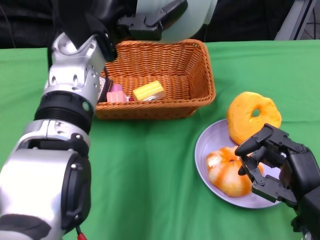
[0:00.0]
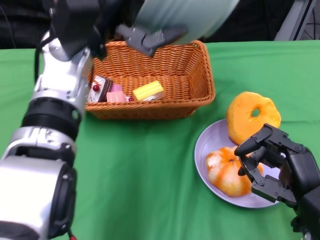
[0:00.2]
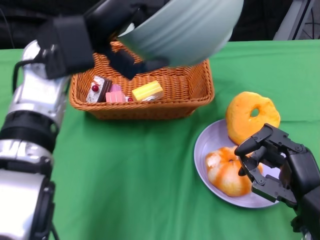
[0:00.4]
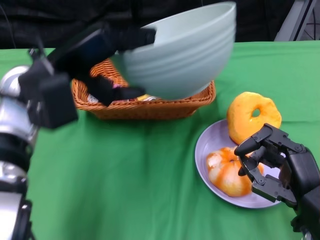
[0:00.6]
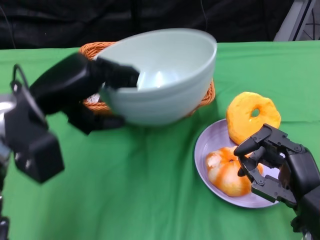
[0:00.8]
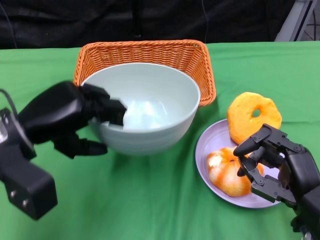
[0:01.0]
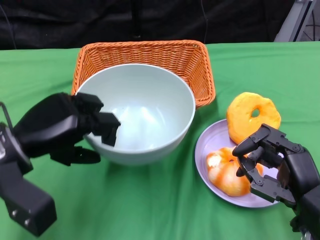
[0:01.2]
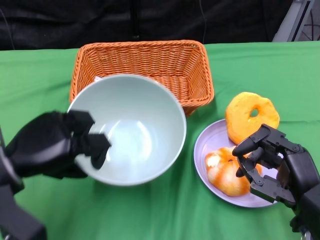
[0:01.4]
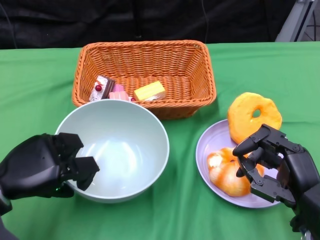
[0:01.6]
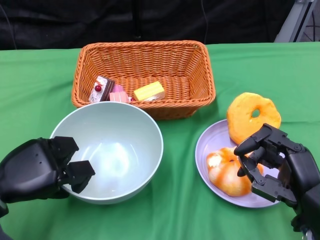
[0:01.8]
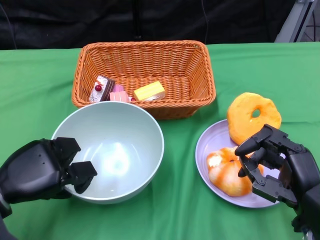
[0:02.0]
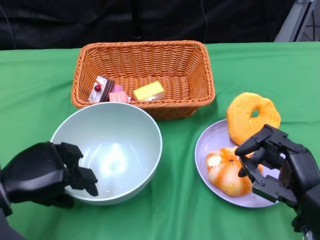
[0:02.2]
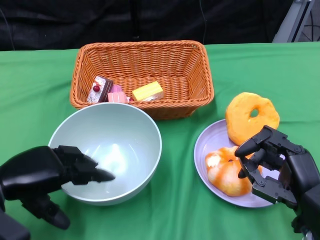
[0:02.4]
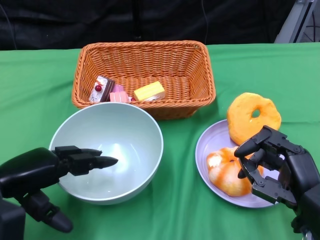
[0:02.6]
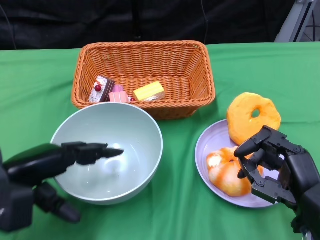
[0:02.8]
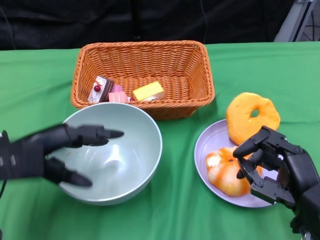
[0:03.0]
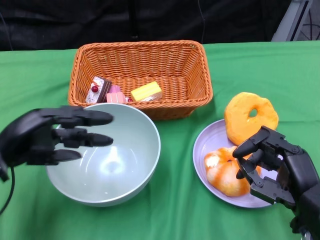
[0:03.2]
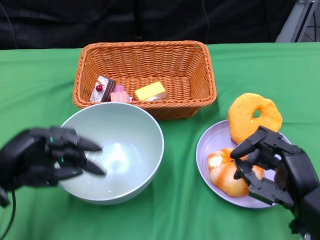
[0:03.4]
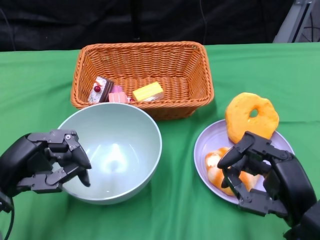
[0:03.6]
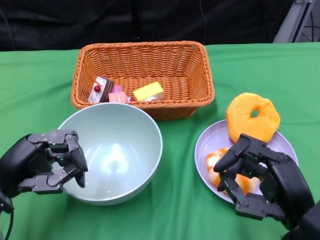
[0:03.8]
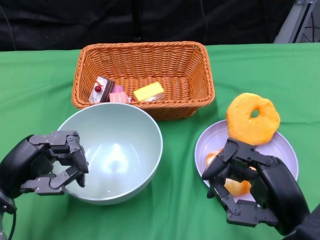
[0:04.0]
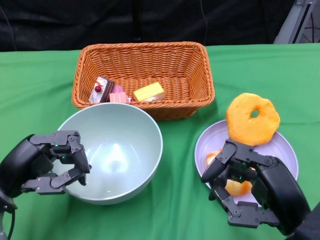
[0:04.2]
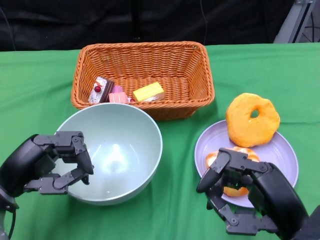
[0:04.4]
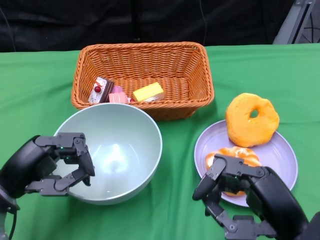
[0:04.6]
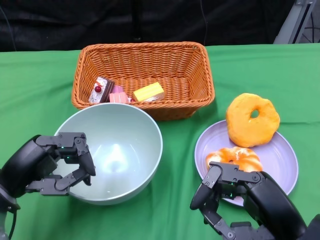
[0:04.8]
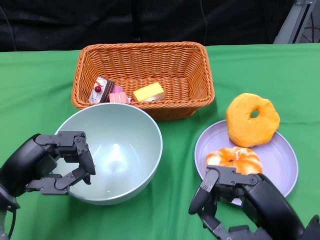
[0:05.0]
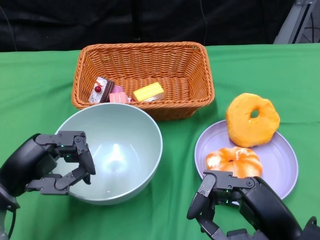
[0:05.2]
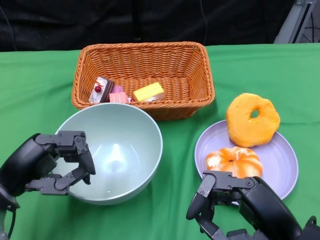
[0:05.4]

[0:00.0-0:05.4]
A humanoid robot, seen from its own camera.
Step, 0:00.0 to 0:02.4: Place the bowl on the table with the left gripper.
0:00.0 to 0:01.4: The left hand goes roughly 20 cm to the left, downward and backward.
0:04.0 to 0:05.4: There are only small adjustments of the hands.

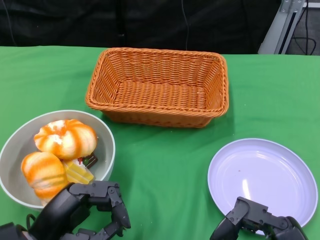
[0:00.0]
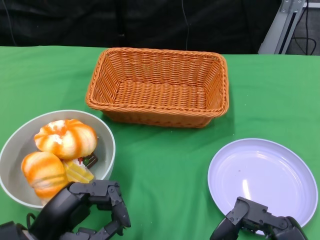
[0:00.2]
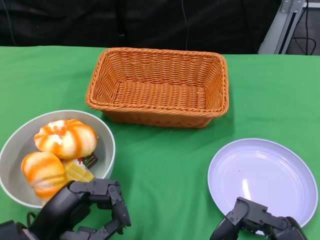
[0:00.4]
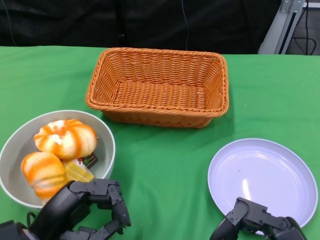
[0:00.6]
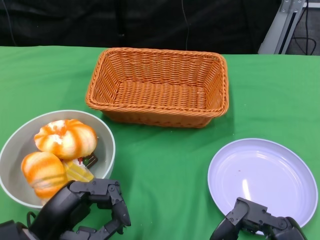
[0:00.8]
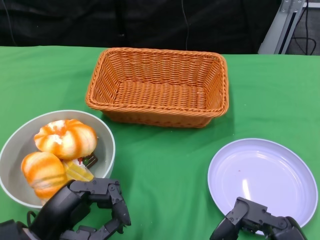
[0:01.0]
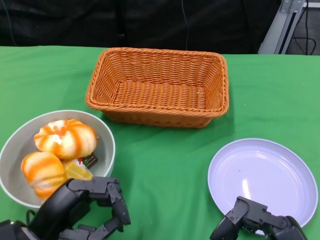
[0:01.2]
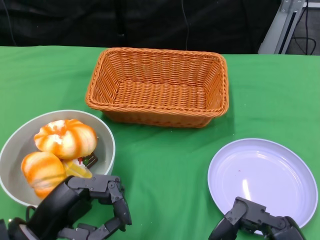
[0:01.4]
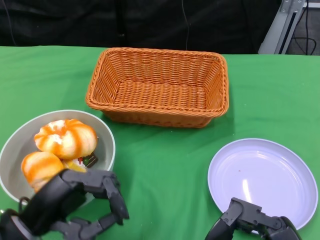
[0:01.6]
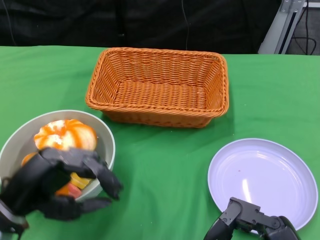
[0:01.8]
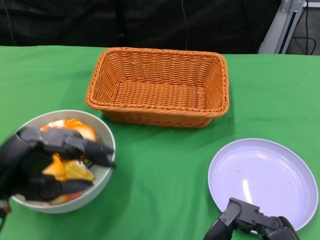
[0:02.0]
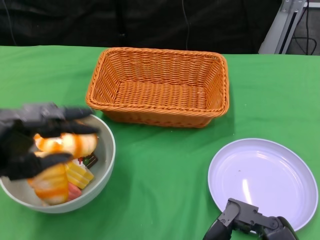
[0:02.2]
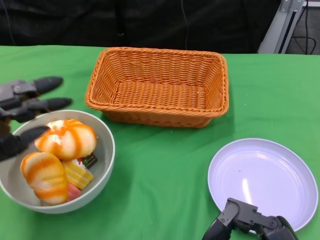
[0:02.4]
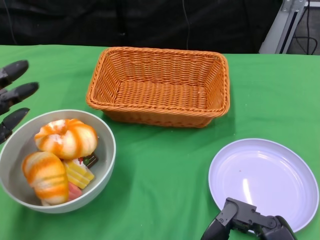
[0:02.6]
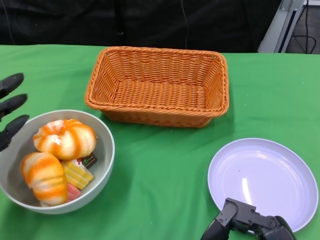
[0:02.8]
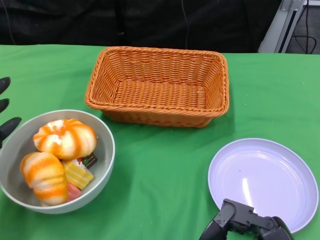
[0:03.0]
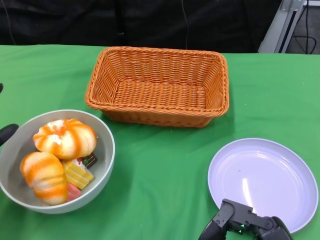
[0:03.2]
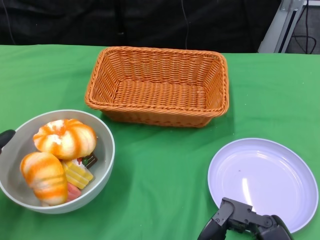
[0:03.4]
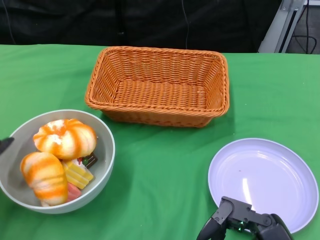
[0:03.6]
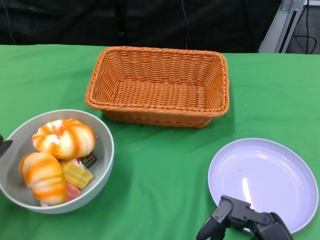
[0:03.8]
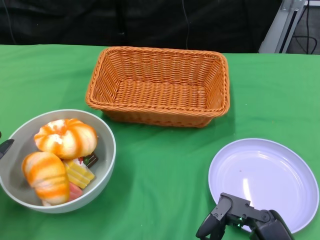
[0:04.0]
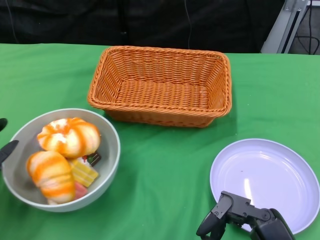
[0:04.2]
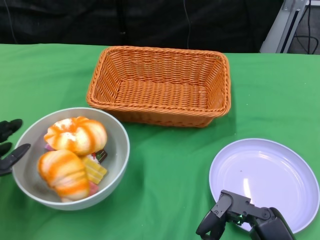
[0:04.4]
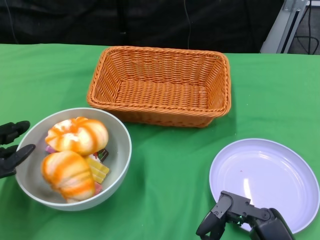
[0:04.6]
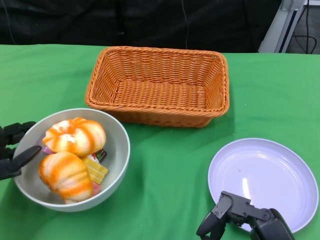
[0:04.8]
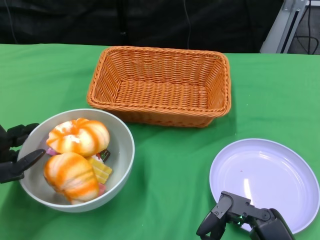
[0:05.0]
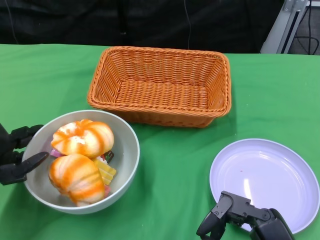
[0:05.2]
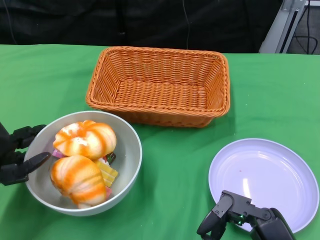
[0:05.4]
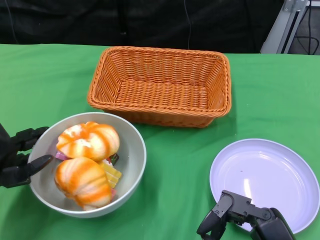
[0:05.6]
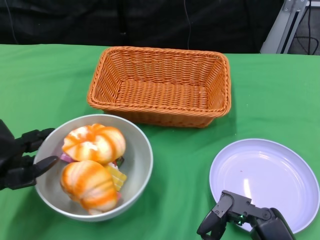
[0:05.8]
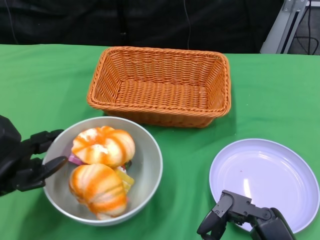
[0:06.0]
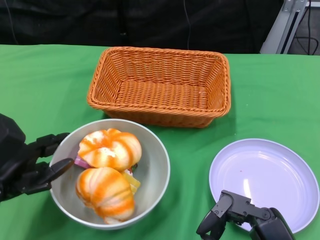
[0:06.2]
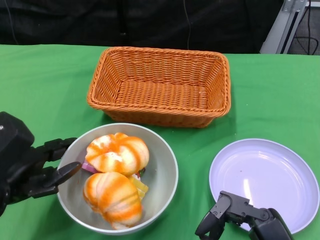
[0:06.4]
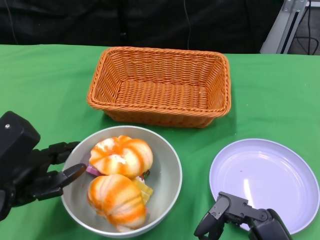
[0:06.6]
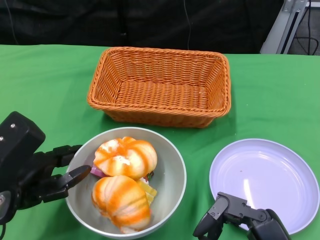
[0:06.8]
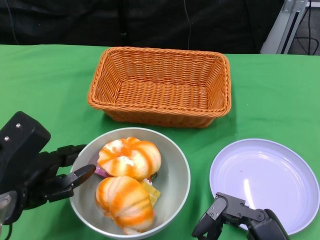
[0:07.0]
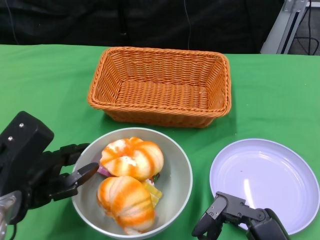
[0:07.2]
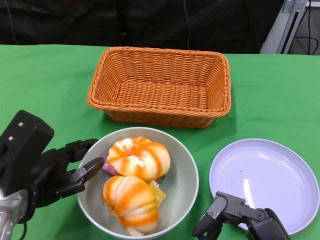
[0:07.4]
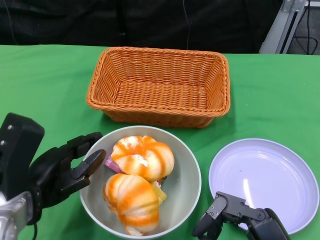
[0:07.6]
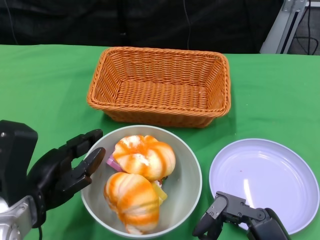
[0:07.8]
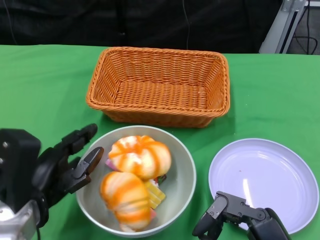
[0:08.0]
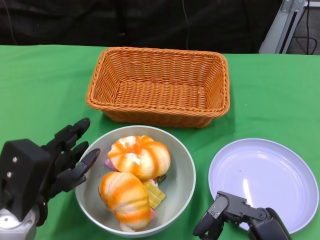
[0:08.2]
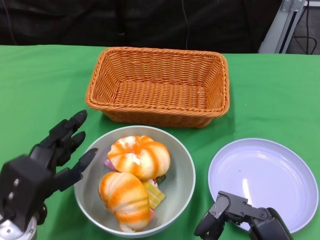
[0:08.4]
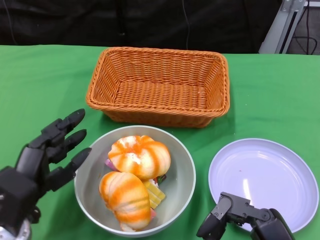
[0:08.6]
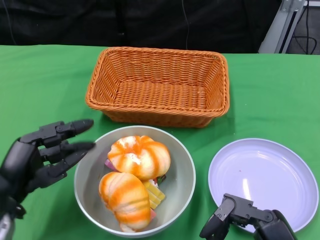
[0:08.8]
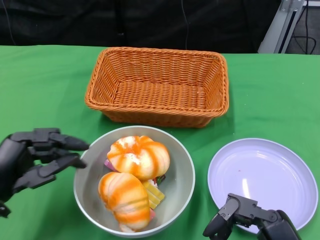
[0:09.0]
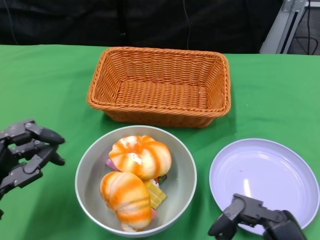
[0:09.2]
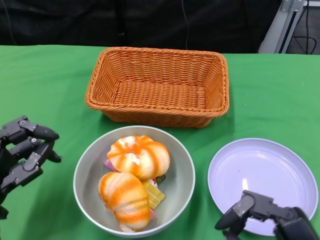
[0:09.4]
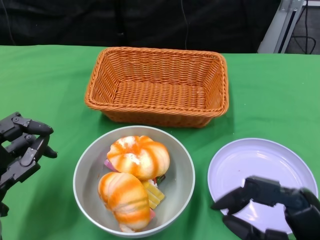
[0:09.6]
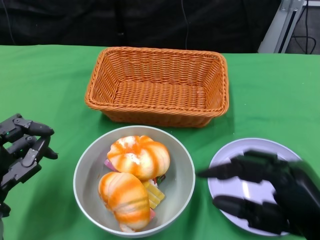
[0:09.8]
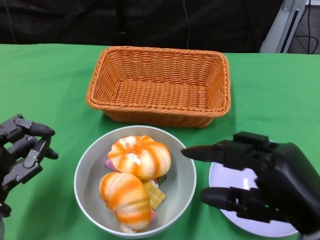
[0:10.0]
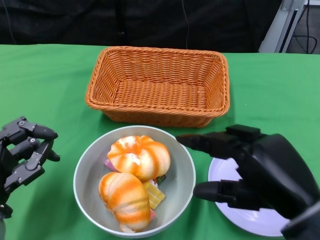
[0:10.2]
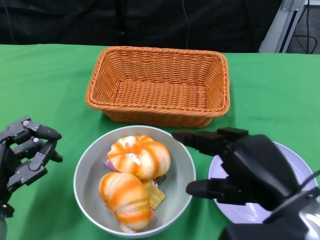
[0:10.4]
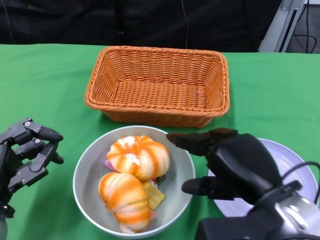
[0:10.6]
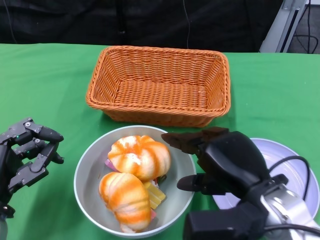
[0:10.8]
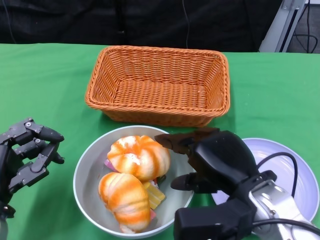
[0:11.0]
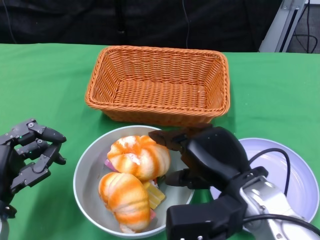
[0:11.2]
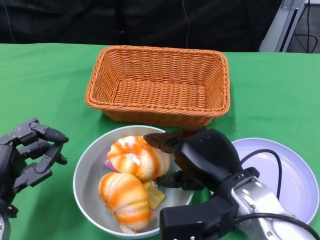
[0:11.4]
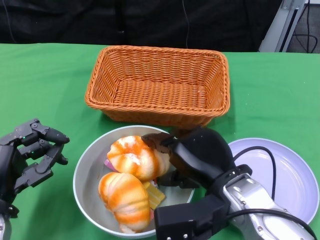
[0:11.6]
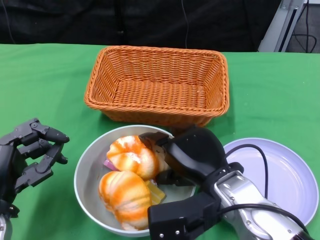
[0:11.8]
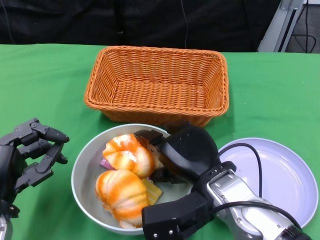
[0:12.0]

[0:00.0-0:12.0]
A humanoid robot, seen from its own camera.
Step, 0:00.0 to 0:08.4: Push the bowl to the center of the table using the left gripper.
0:01.6 to 0:03.0: The left hand shifts some 10 cm to the left and forward.
0:04.4 to 0:06.0: The left hand shifts by some 5 cm.
0:06.0 to 0:07.6: The left hand goes some 5 cm to the right.
0:09.0 to 0:10.4: The right hand moves upward and forward, approximately 10 cm.
0:10.4 to 0:12.0: The right hand is displaced to the left, forward and downward by roughly 10 cm.

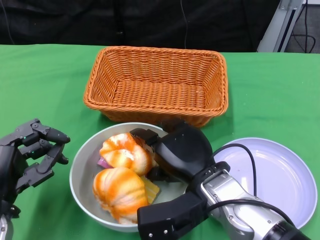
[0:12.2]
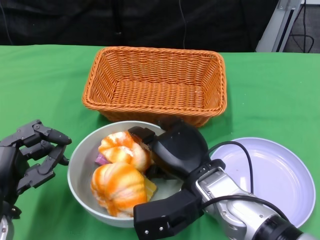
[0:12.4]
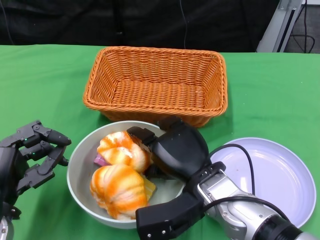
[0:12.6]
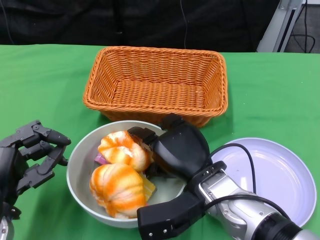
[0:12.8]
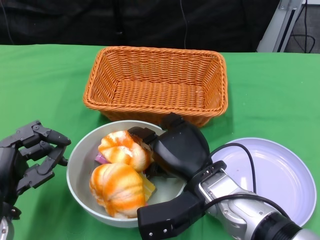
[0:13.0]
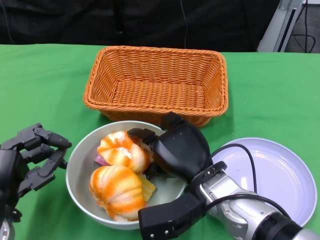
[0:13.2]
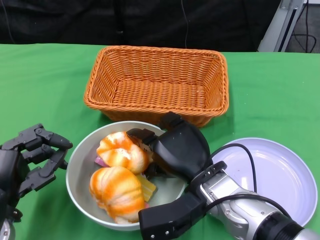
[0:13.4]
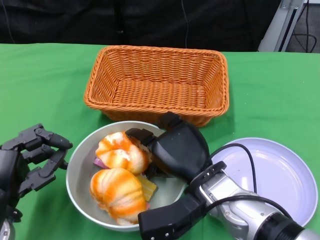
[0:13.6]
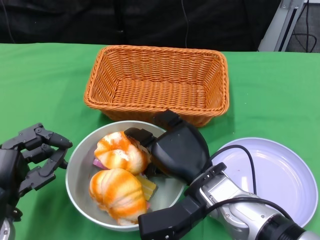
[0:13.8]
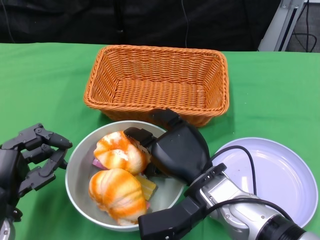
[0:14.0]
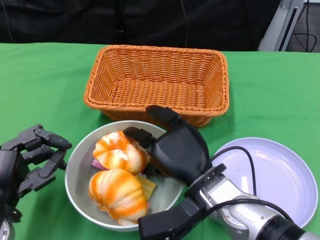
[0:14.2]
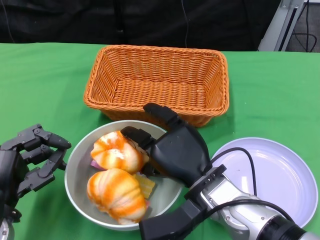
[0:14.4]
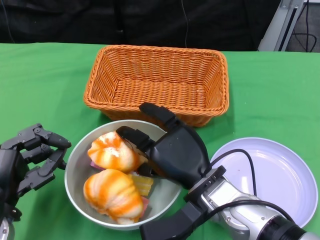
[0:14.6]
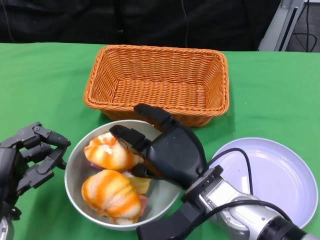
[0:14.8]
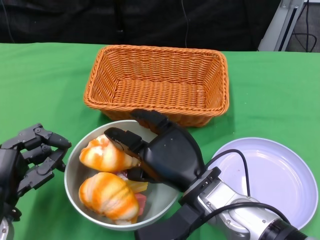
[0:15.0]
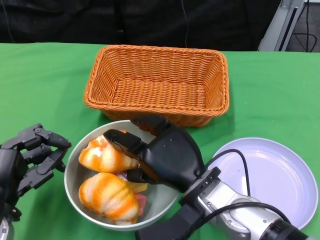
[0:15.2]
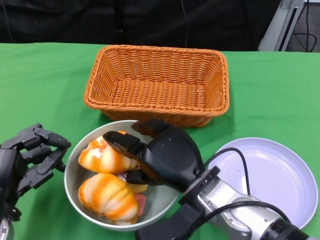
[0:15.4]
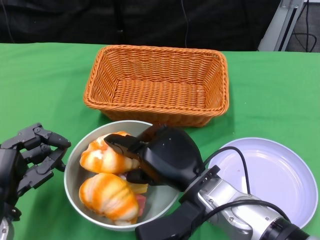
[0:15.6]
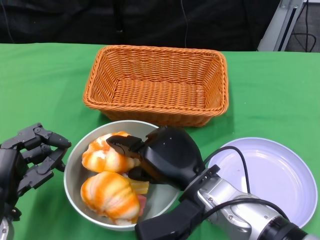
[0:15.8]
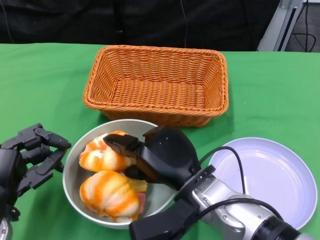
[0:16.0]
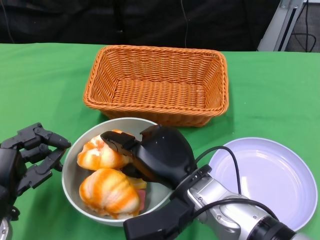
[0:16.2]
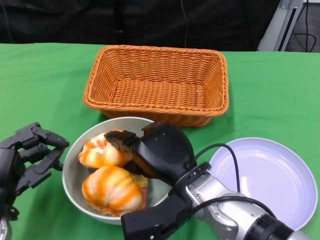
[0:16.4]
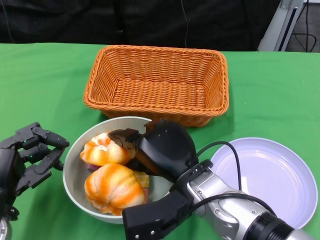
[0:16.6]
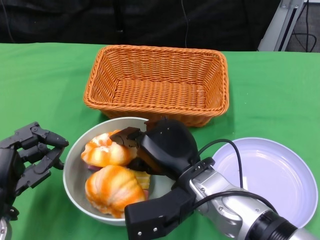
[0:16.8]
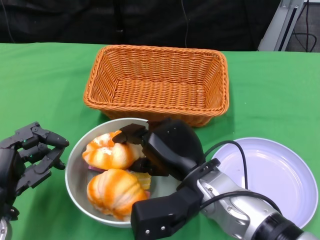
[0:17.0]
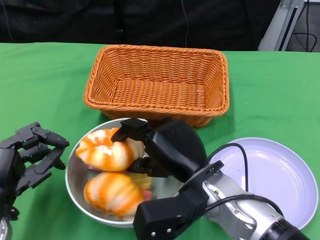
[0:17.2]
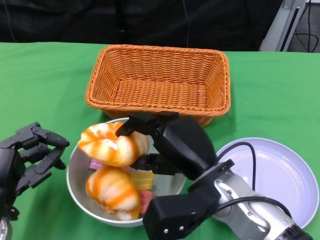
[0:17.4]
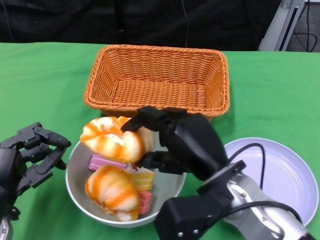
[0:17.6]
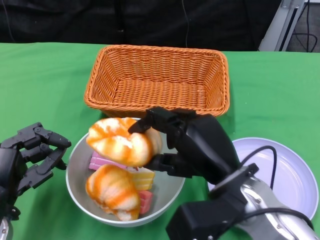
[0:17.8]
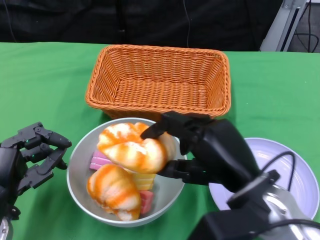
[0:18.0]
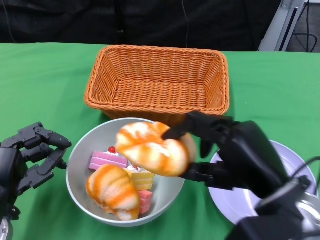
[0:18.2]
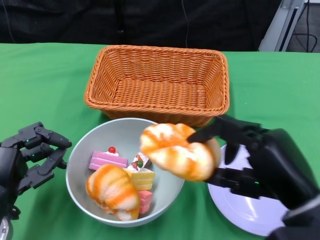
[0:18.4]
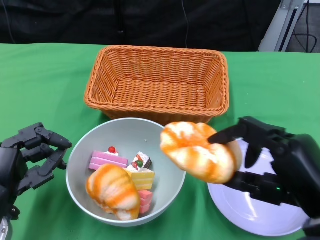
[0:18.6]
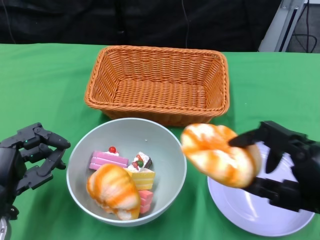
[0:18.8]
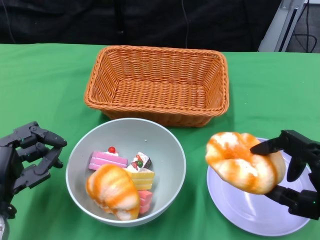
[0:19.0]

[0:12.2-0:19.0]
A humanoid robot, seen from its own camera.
0:12.2 to 0:13.6: The hands stay close to where they were, moving slightly.
0:15.0 to 0:16.2: The hands make only small movements.
0:16.2 to 0:17.6: The right hand shifts by roughly 5 cm.
0:17.6 to 0:19.0: The right hand heads to the right and backward, covering approximately 20 cm.
